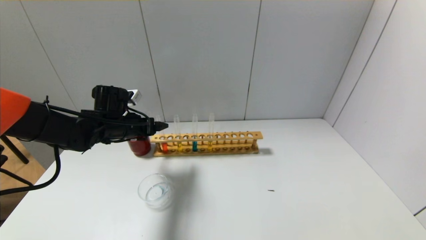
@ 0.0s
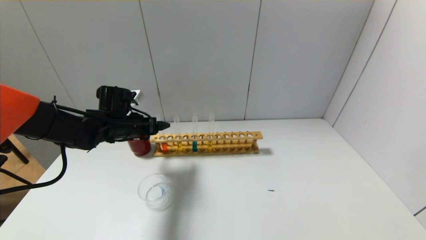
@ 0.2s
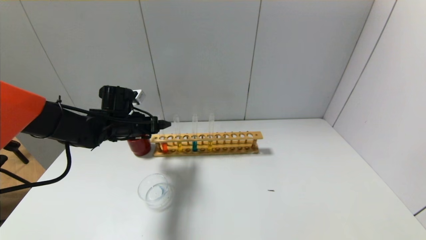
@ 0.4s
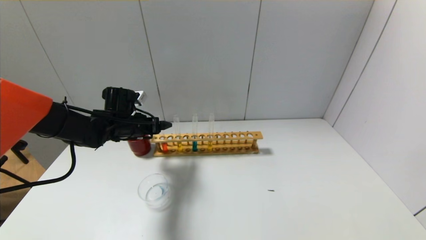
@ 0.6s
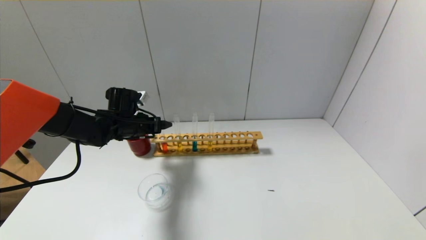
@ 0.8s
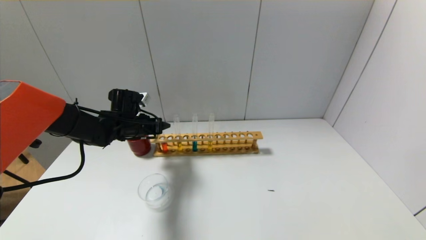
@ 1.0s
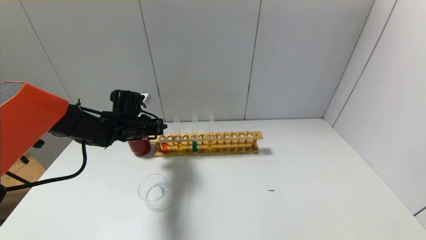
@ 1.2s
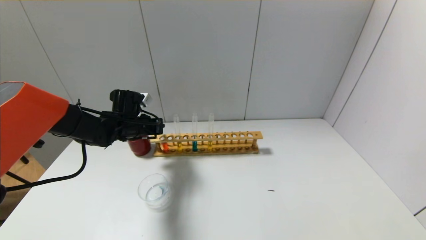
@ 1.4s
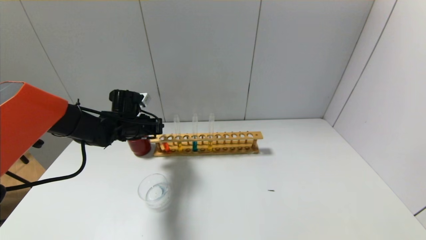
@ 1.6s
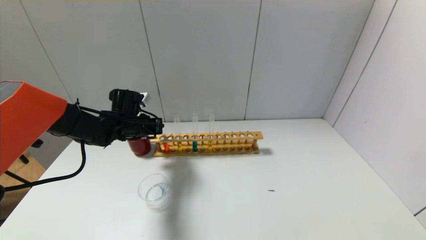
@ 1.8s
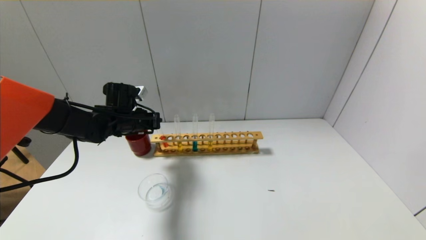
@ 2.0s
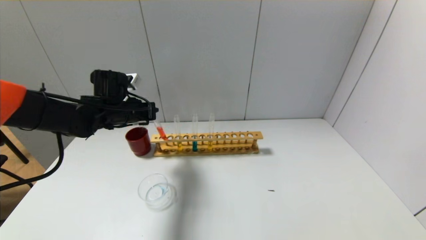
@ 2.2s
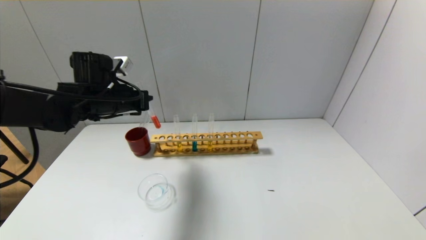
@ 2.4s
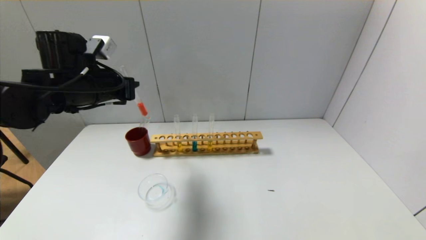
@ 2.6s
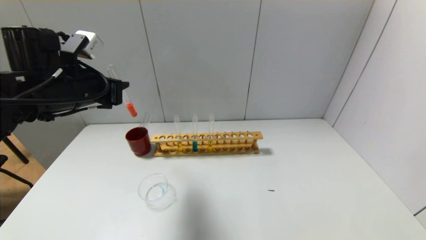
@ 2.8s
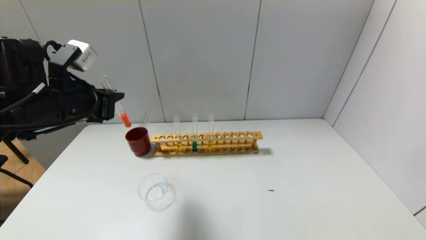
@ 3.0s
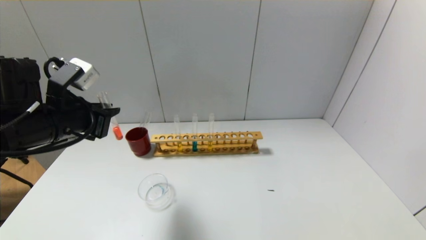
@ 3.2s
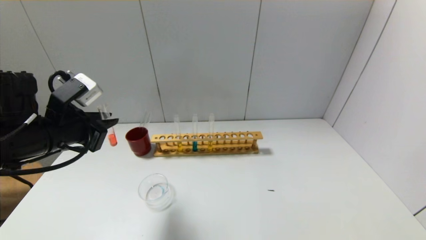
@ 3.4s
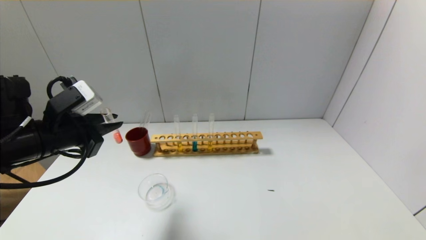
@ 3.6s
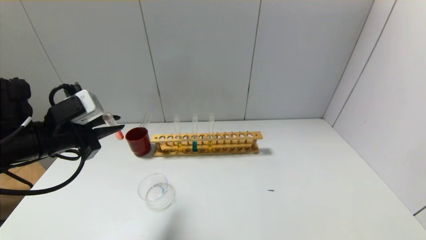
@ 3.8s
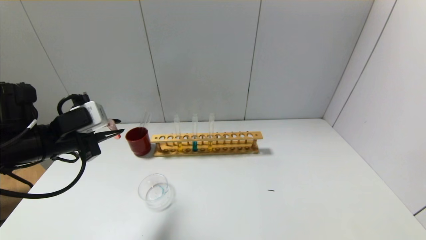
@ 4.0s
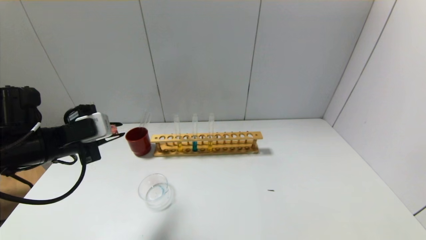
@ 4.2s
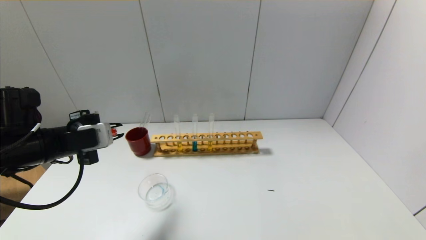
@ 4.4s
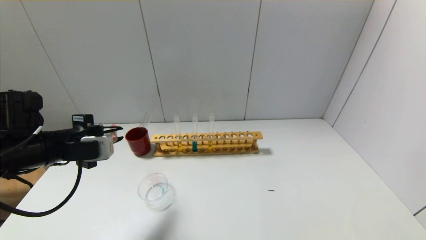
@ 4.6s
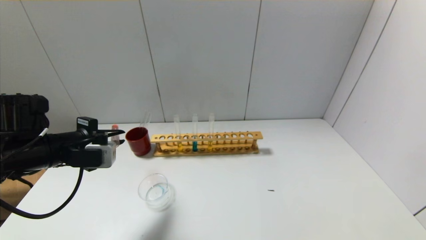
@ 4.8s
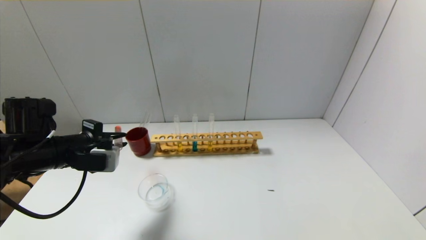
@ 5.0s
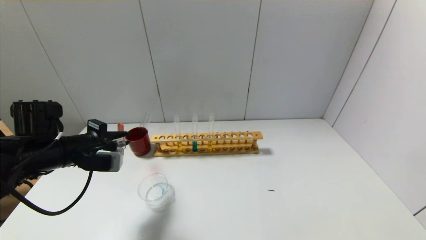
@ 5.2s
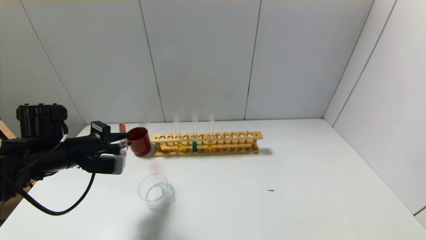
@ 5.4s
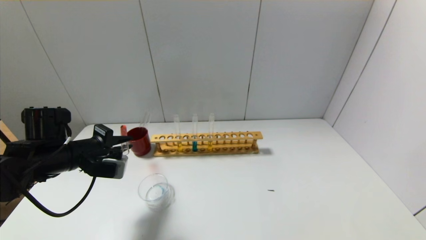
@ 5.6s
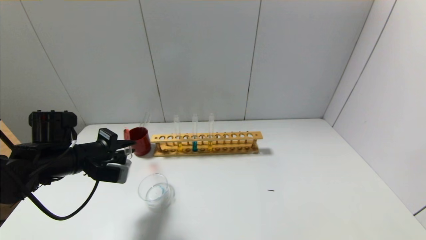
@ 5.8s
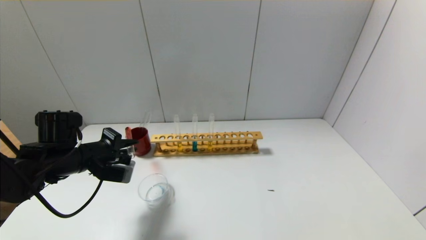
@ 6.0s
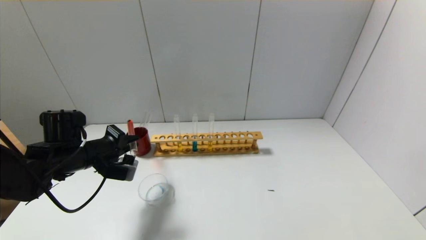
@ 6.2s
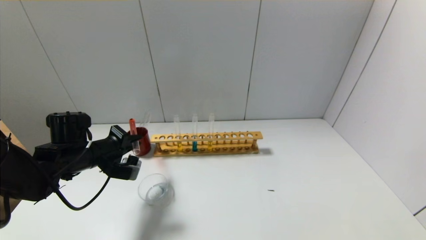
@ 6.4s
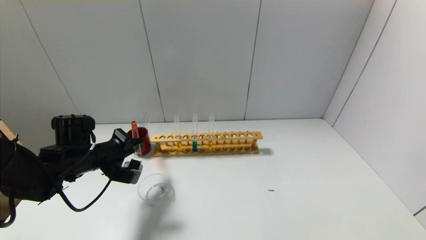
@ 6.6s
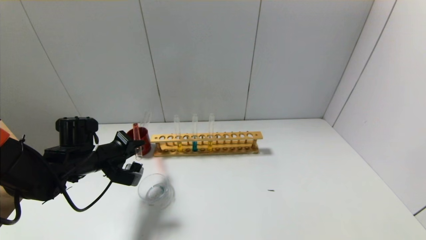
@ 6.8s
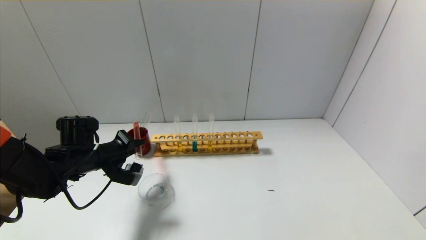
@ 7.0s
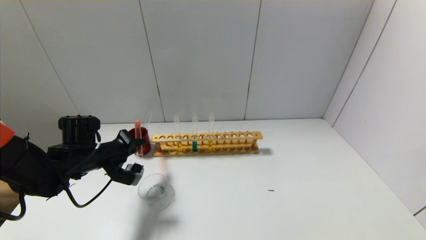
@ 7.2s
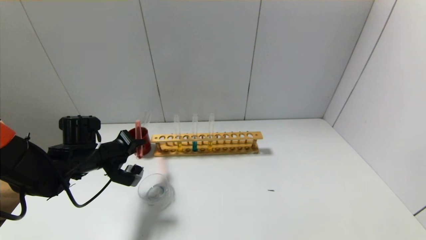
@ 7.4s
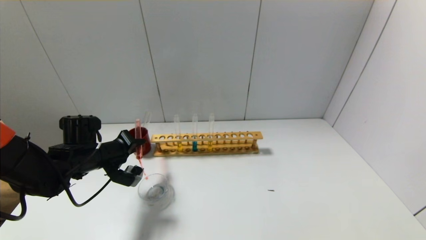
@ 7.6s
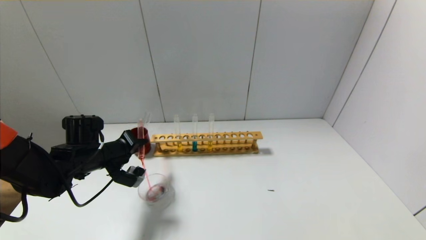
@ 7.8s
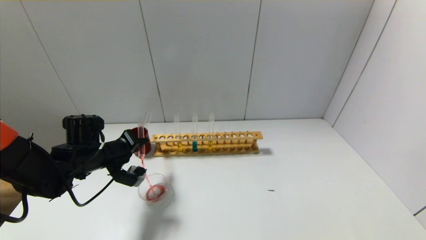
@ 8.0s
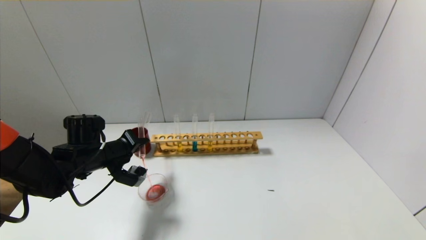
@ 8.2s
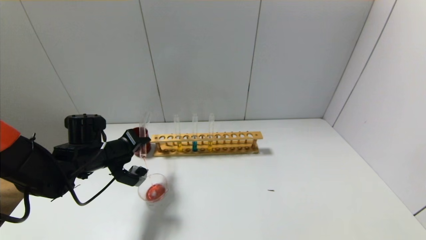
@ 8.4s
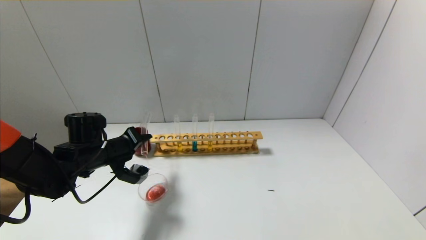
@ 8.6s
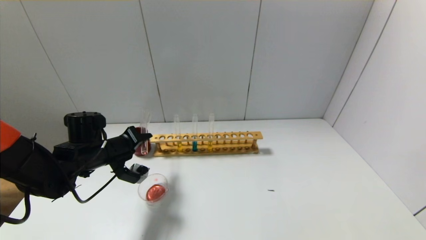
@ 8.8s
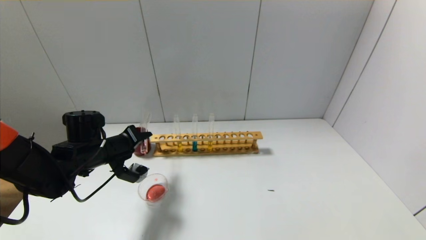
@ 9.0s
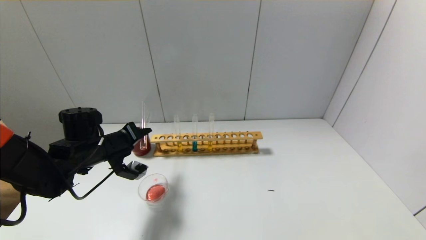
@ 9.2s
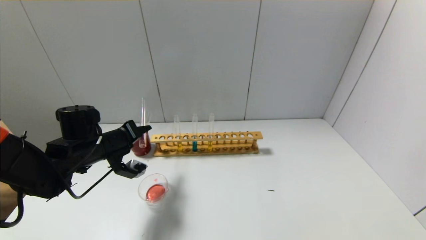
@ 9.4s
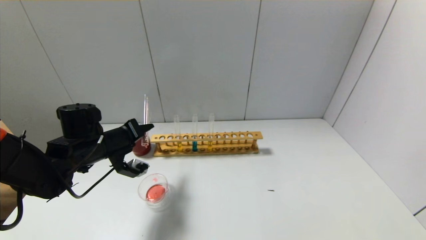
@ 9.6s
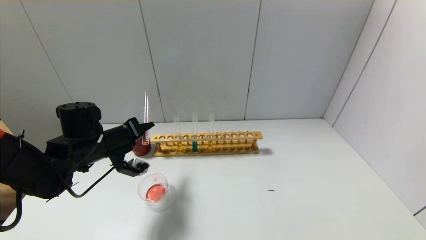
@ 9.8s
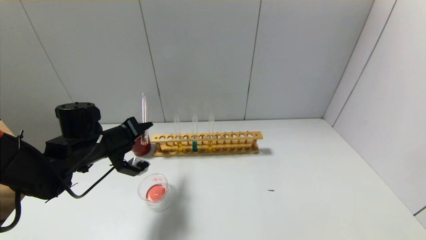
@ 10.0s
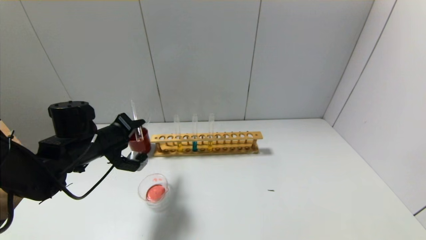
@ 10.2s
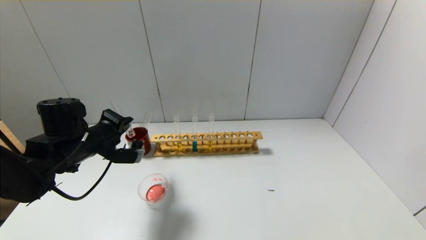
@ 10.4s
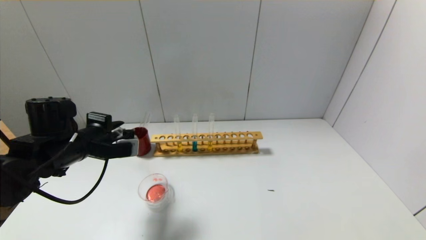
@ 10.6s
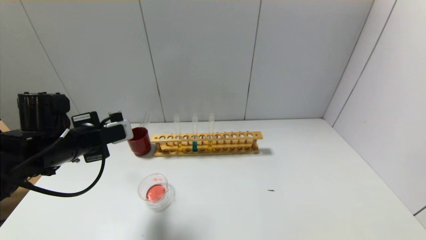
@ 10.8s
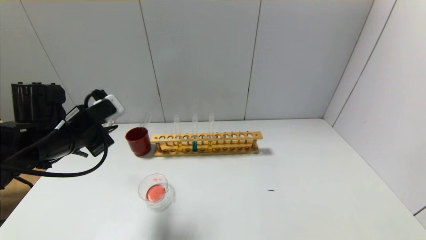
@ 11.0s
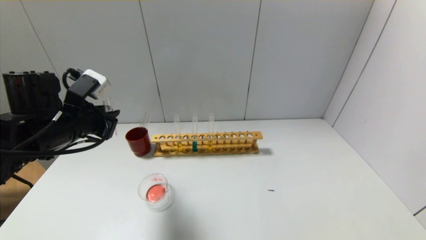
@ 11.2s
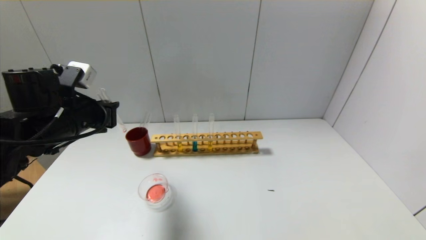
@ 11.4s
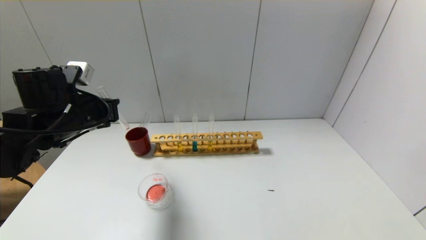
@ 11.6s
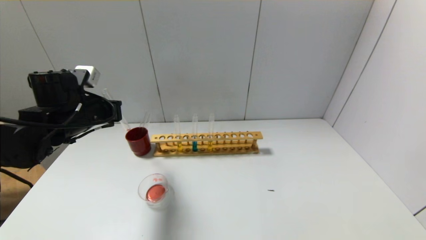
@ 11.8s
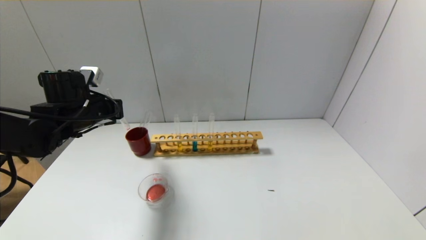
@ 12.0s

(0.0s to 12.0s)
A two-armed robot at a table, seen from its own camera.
Step, 1.6s - 10.2s: Pour the red reagent into the graduated cylinder with the left gripper.
0.0s - 1.6s: The left gripper closes.
1.6s - 3.0s: The left gripper goes approximately 20 cm backward and upward.
3.0s - 4.4s: The left gripper shifts some 5 cm downward.
4.4s - 6.0s: The left gripper goes some 5 cm downward.
7.6s - 9.0s: There are only small adjustments of the grippers.
10.4s - 12.0s: The left gripper shifts roughly 5 cm forward.

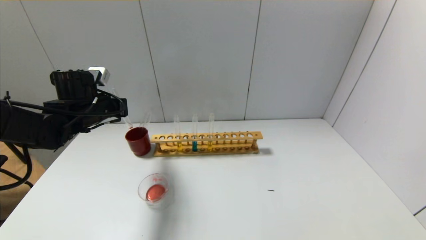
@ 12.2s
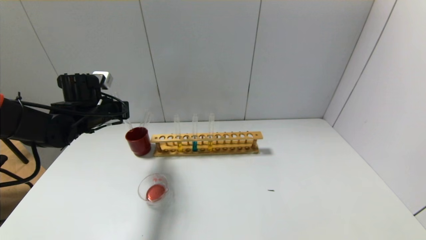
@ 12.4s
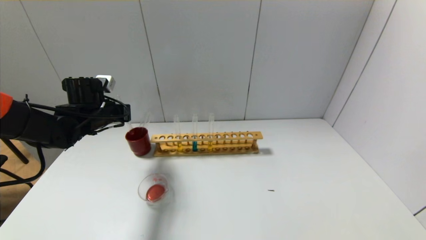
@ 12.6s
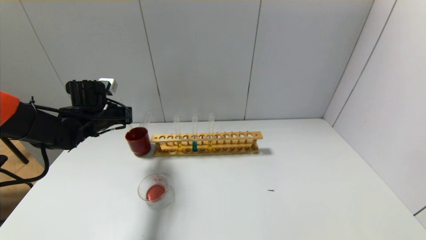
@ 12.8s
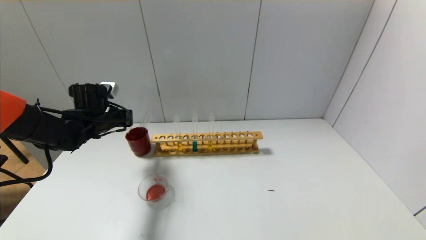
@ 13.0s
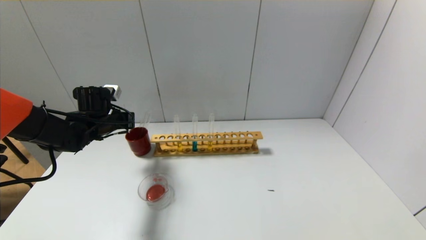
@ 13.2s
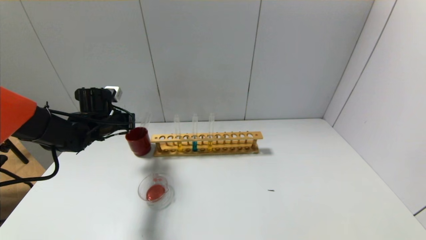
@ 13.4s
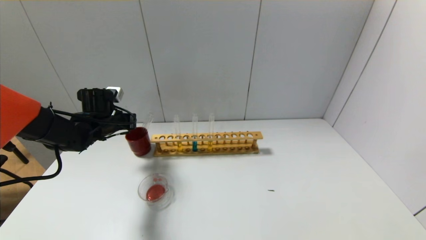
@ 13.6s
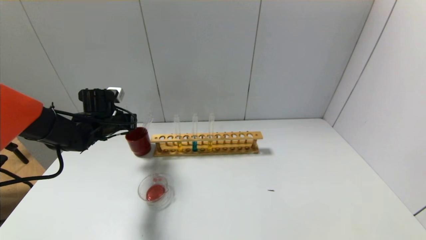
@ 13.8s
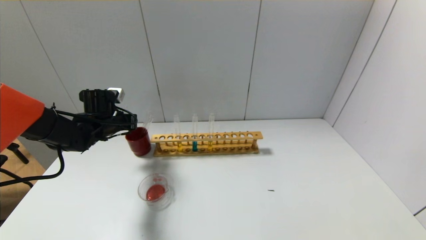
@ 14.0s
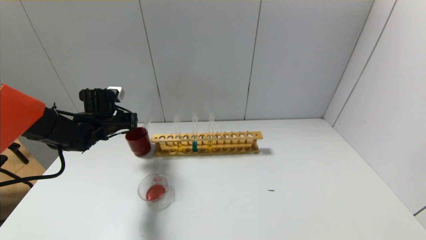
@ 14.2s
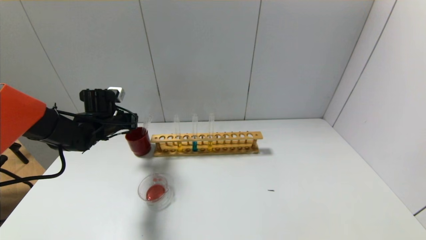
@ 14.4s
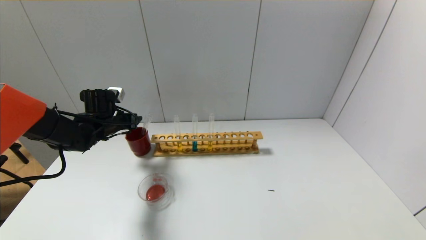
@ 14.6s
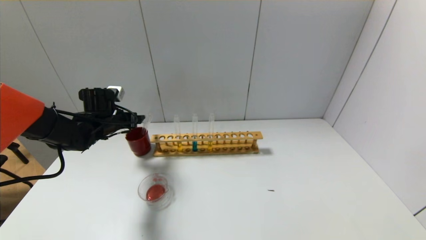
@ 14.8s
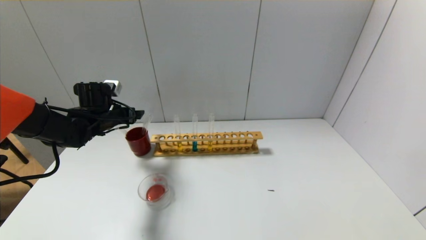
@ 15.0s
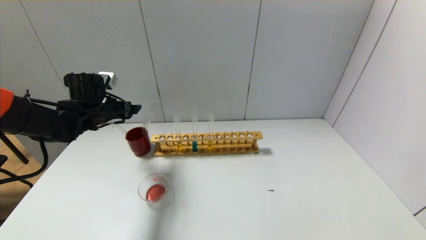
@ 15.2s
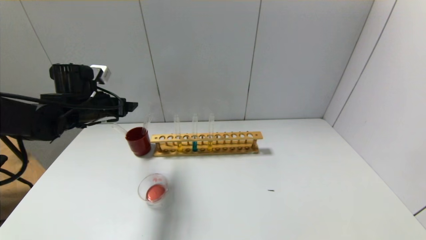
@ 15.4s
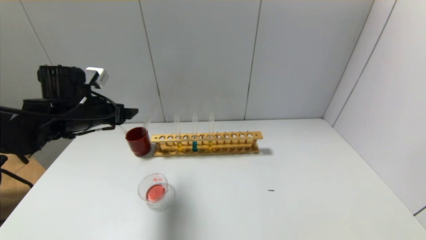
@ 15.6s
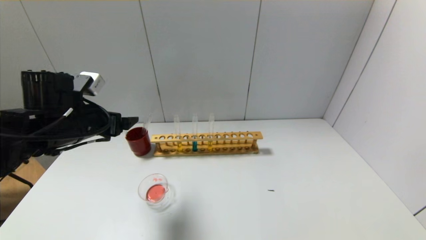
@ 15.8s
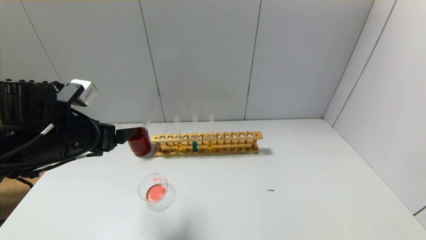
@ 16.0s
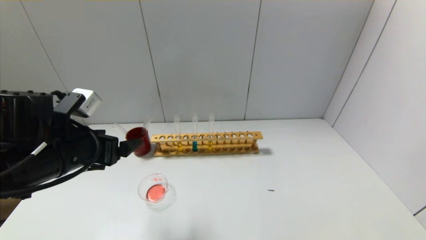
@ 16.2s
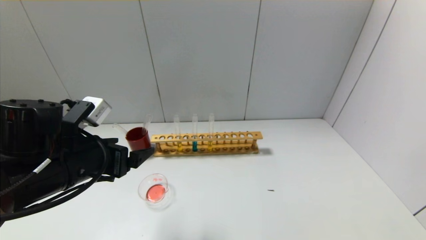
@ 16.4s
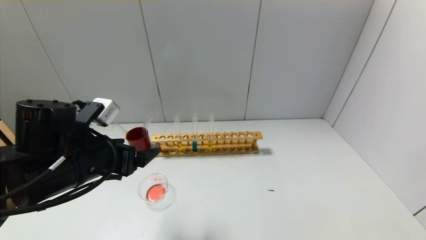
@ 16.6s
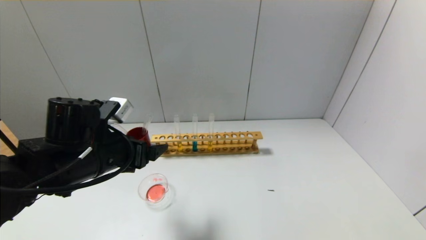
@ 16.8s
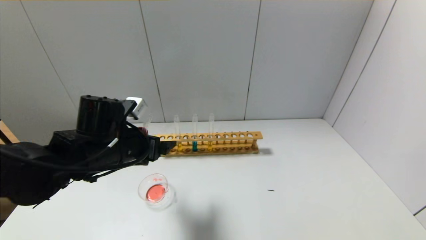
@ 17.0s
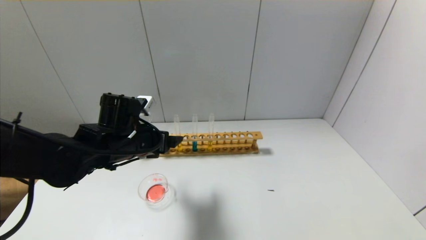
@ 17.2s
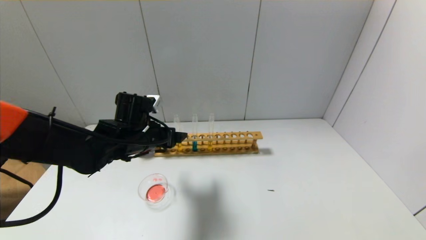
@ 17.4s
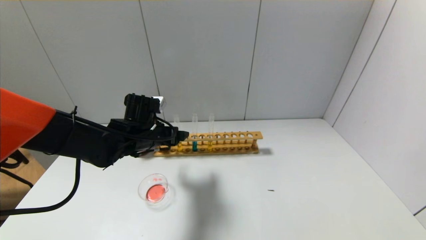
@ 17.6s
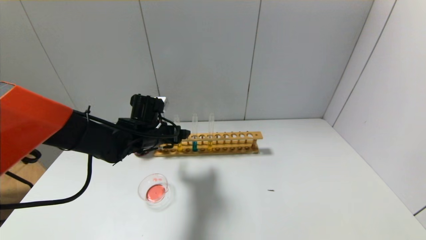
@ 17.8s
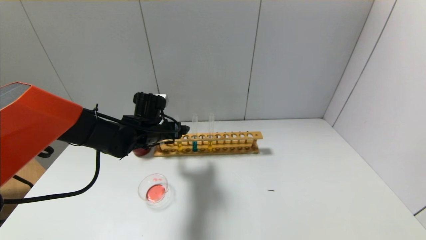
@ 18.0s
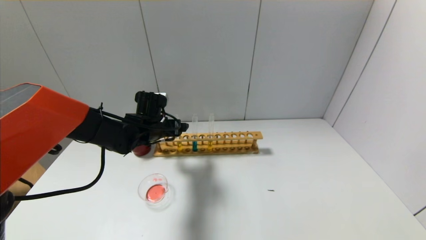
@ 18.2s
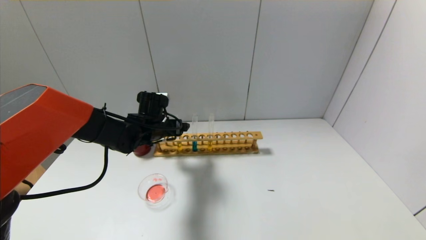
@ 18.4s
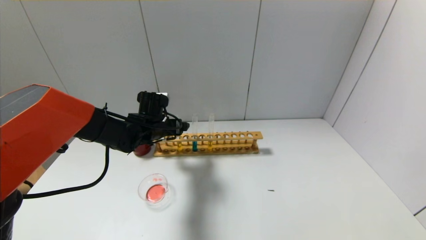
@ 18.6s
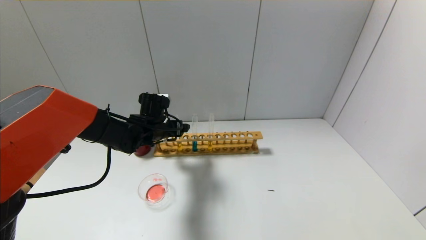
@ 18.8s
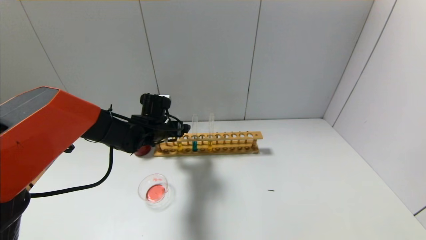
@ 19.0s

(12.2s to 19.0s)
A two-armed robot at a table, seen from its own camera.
Step, 12.2s - 14.4s: Place the test tube into the brown cup with the left gripper.
12.2s - 13.6s: The left gripper shifts approximately 5 cm downward.
13.6s - 15.0s: The left gripper opens up.
15.0s - 16.2s: The left gripper moves backward, some 20 cm.
16.2s - 17.6s: The left gripper goes approximately 15 cm forward, to the right and downward.
17.6s - 19.0s: The left gripper travels forward by approximately 5 cm.
